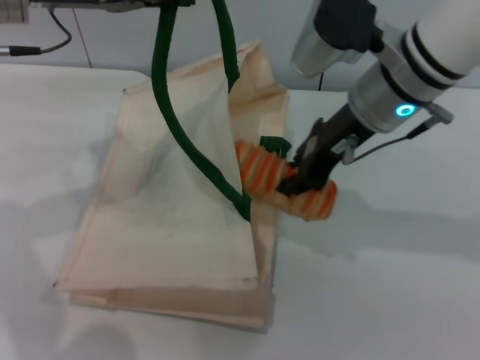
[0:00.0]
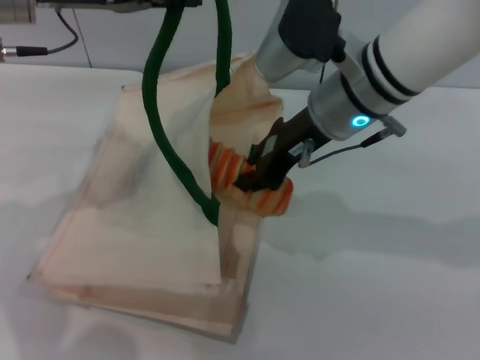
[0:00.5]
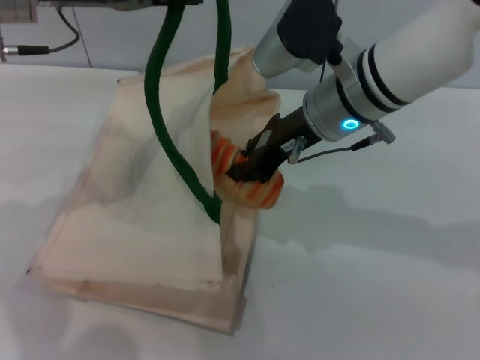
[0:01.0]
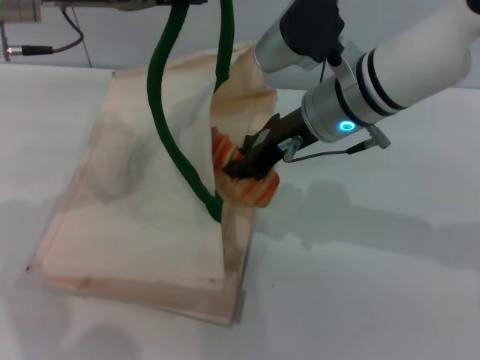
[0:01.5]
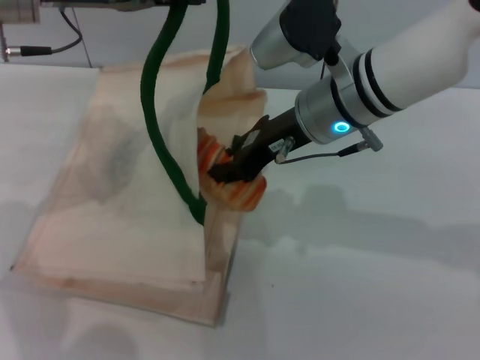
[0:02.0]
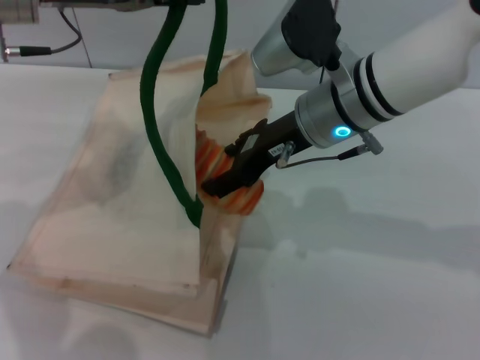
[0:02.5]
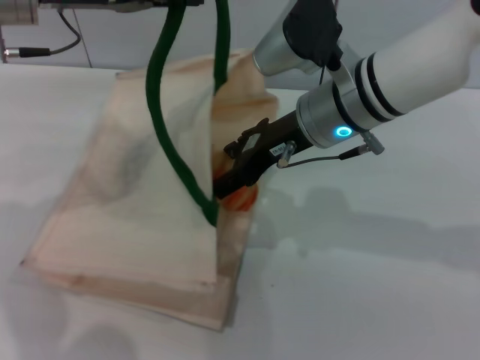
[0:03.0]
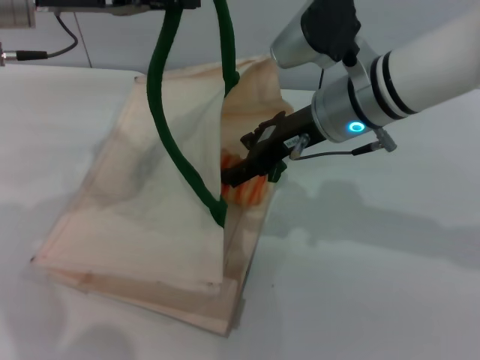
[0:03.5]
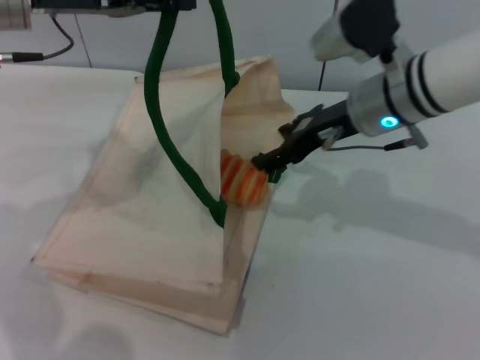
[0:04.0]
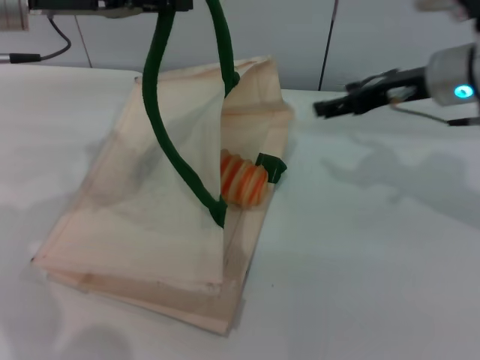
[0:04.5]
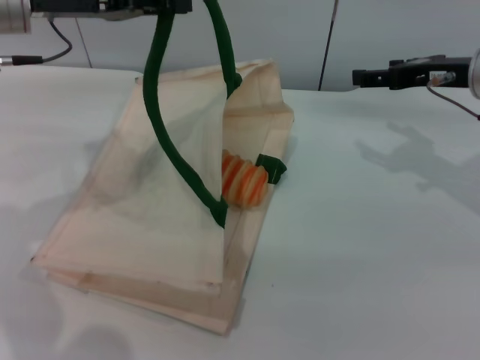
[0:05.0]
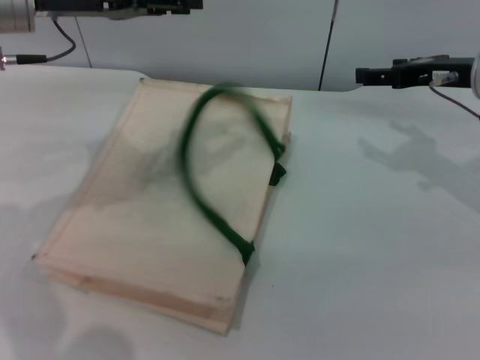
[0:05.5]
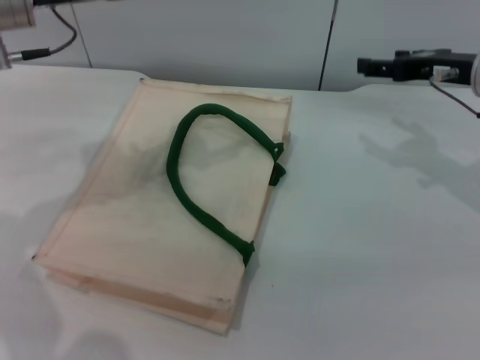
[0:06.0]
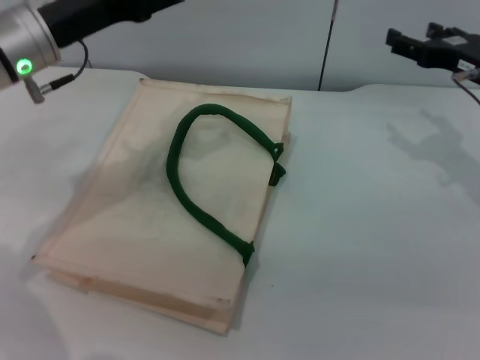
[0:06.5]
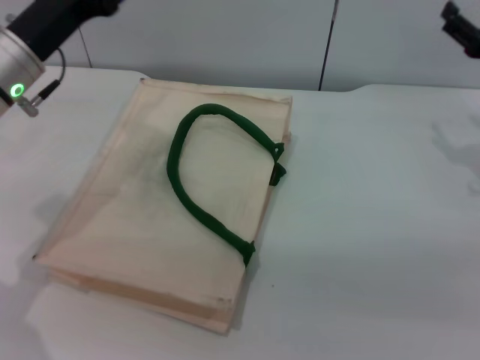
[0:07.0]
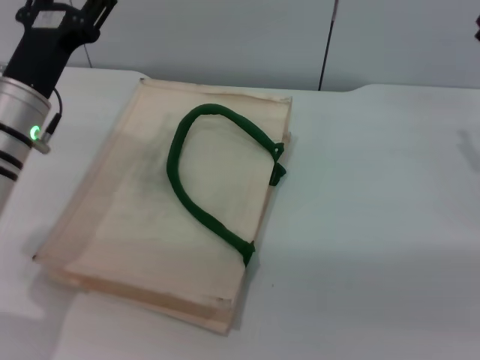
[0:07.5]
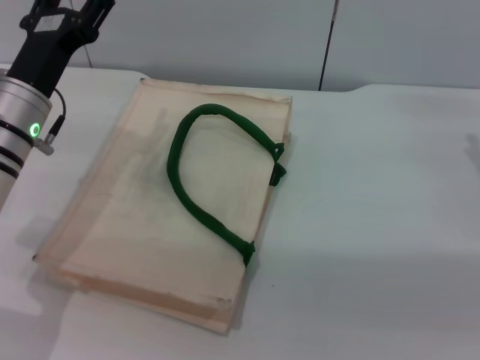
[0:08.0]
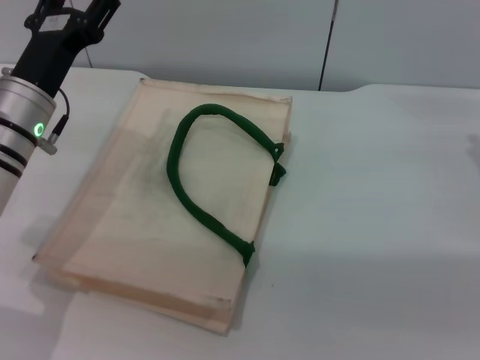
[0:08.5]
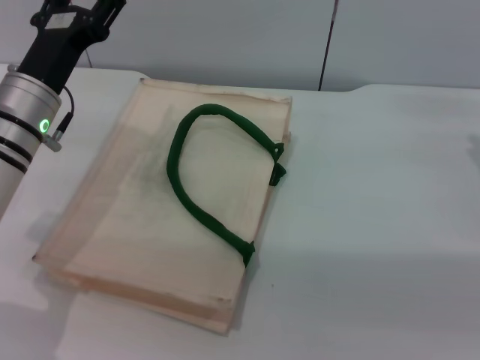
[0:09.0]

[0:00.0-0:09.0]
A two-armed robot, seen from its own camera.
Task of the whole recording: pick up the bread from the table and place it in the white handbag.
Step, 0:00.0 to 0:04.0: Place the bread into the woven bag with the right gripper.
0:02.0 to 0:04.5: The right gripper travels to the right by some 15 cm, and opens its fingers.
0:04.5 to 0:07.0: The left gripper moves downward, approximately 10 cm, and opens its fingers. The right gripper travels to the right by roughly 10 cm.
0:07.0 to 0:09.0: The left gripper changes place by some 5 cm.

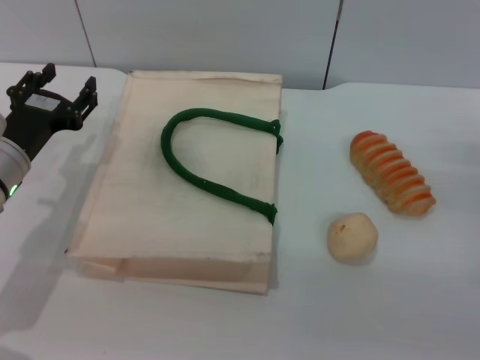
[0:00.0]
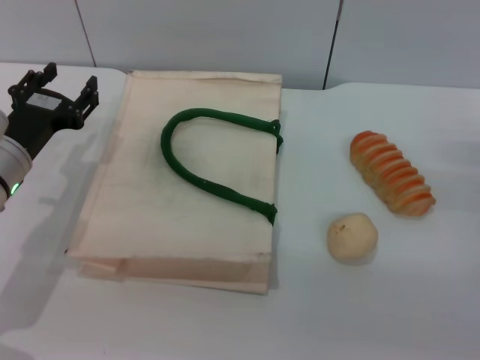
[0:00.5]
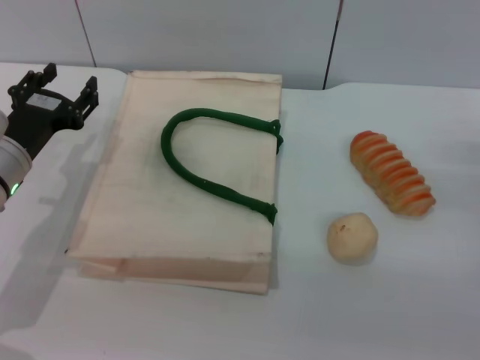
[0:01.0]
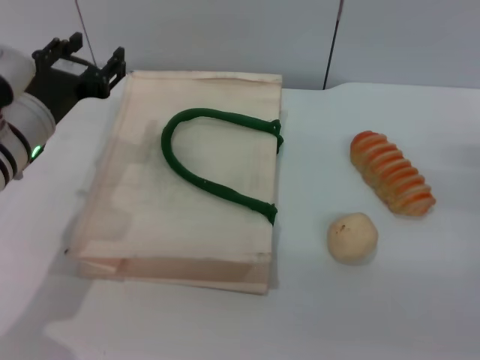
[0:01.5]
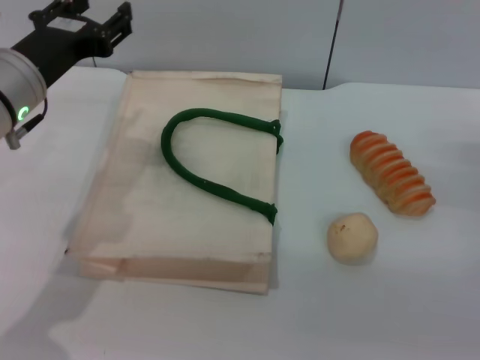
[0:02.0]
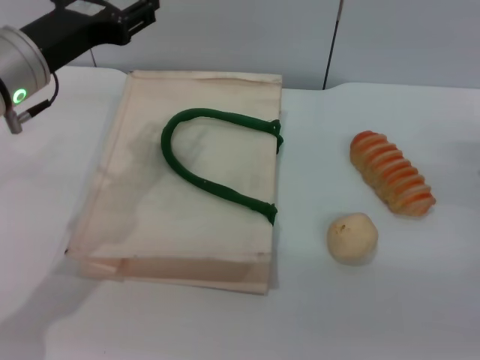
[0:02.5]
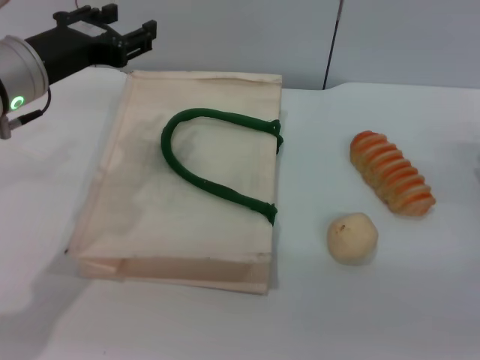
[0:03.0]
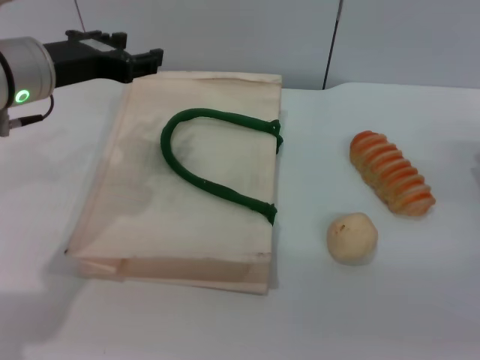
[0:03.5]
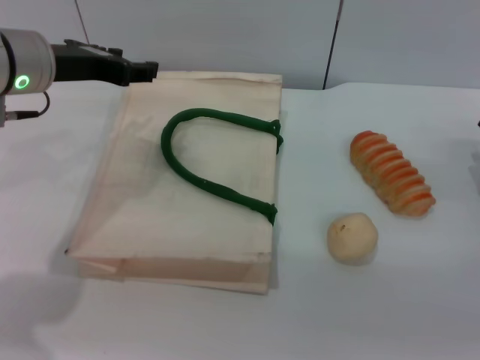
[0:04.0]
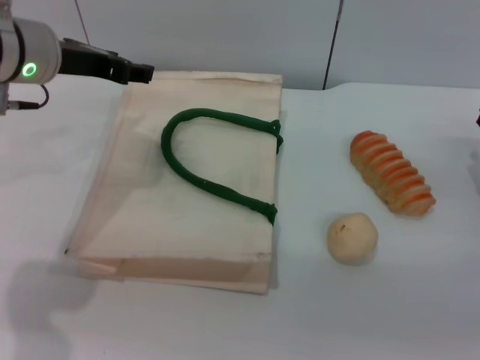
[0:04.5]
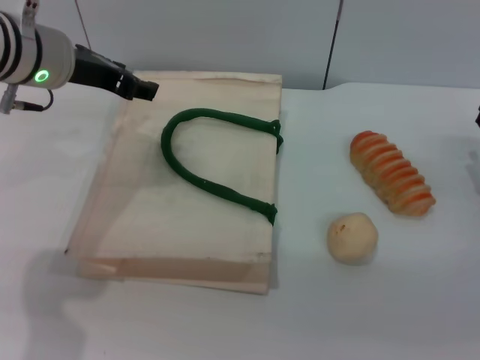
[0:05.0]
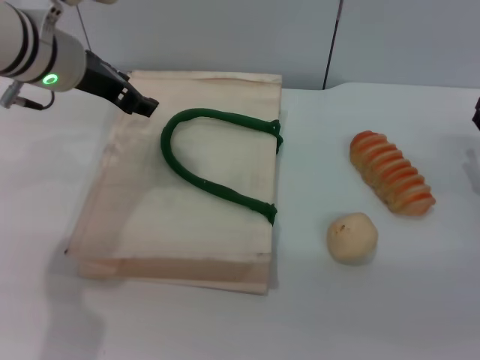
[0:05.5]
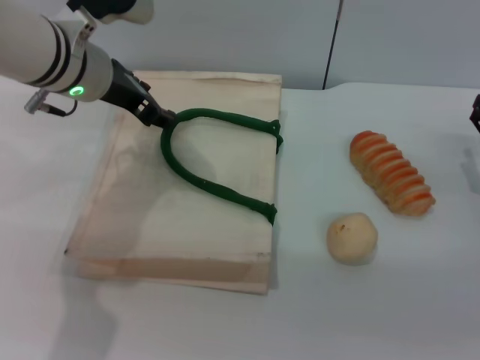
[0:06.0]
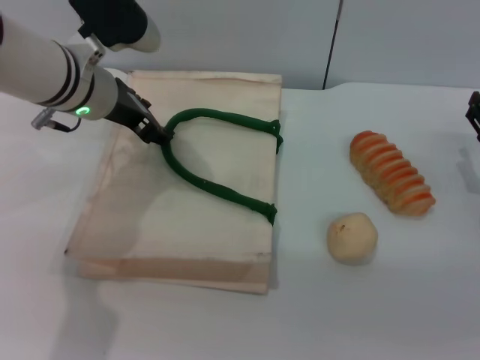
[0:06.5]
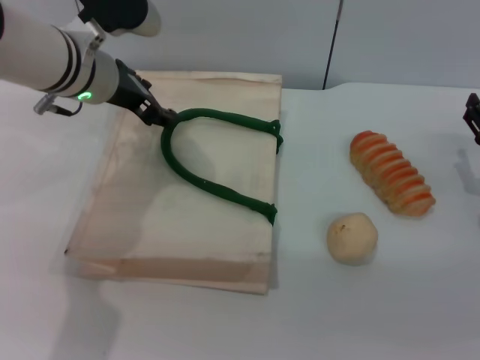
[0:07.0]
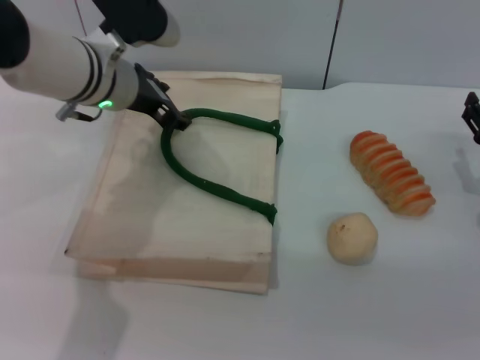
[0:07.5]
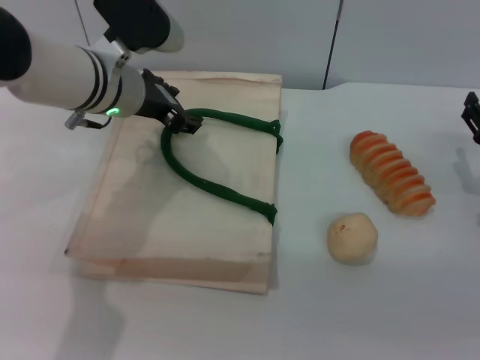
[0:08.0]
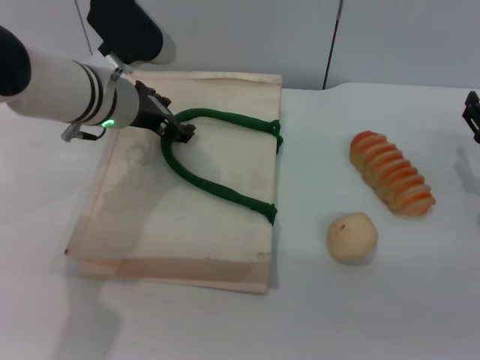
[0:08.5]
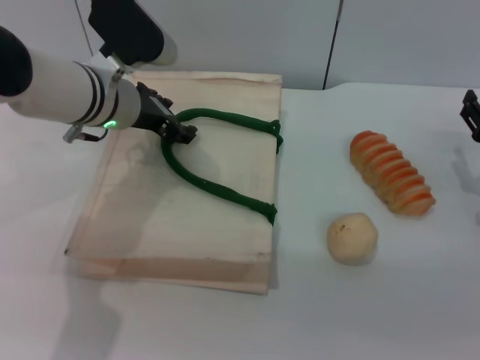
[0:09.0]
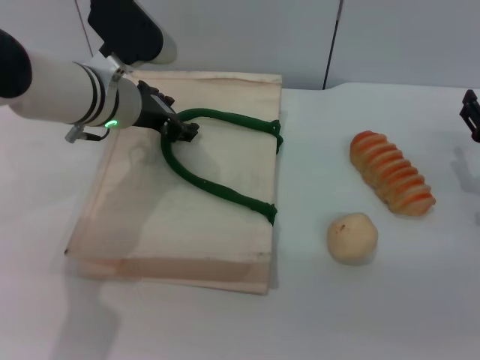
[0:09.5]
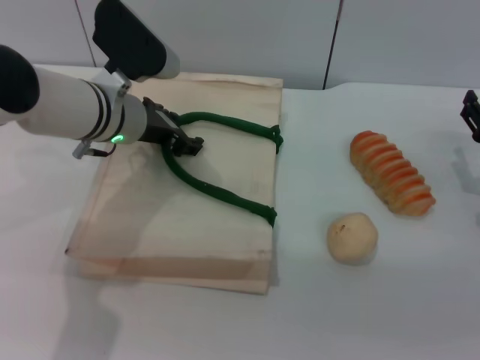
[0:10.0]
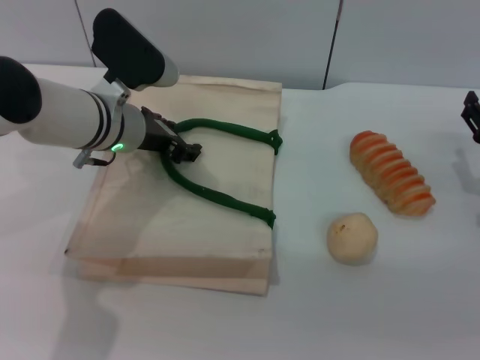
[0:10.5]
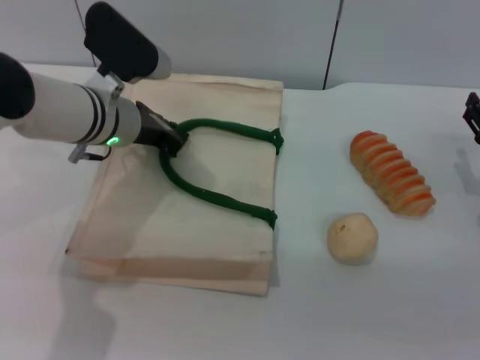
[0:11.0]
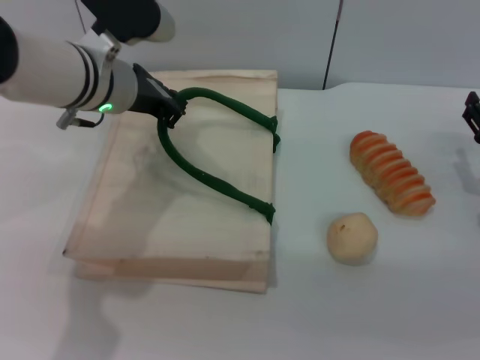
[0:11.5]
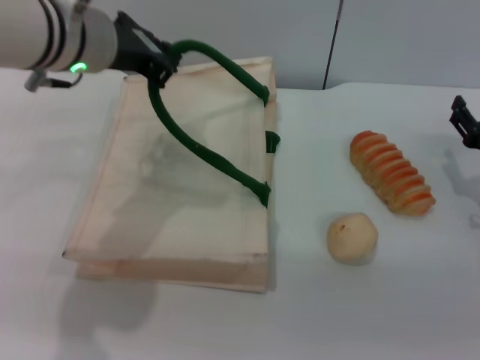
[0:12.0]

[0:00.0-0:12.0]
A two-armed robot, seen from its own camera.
Task of the whole recording: pick up the bread and egg yolk pastry from the table and place it in the white handbag.
0:00.0 to 0:02.0: The left gripper heads upward, covering roughly 10 cm.
0:04.0 to 0:06.0: The left gripper shifts by approximately 5 cm.
0:06.0 to 0:08.0: The grippers make only small movements.
0:08.0 to 0:10.0: The grippers make only small movements.
0:10.0 to 0:12.0: The left gripper heads upward, covering some 10 cm, and closes its fingers.

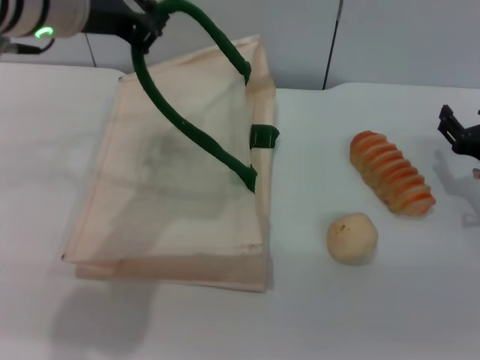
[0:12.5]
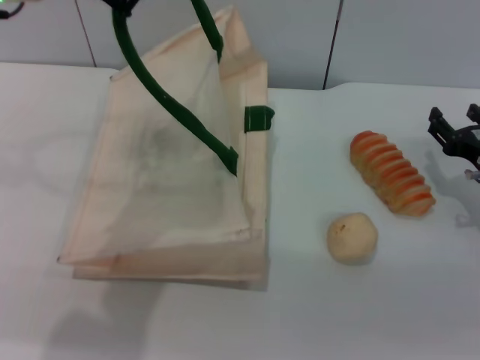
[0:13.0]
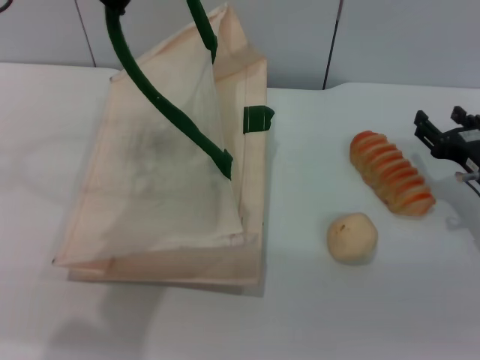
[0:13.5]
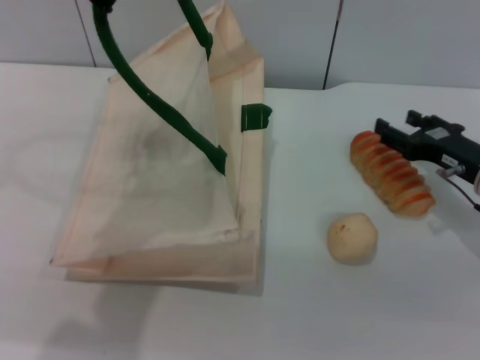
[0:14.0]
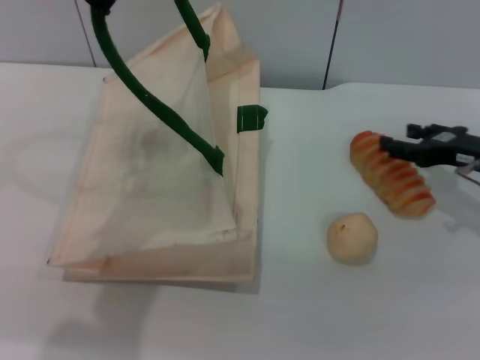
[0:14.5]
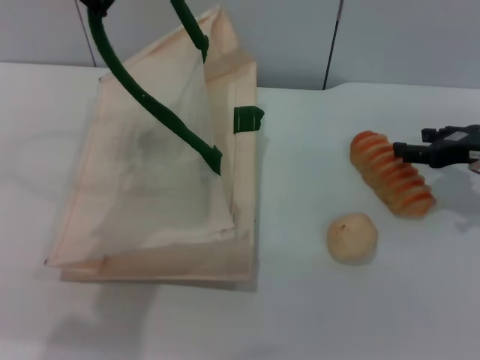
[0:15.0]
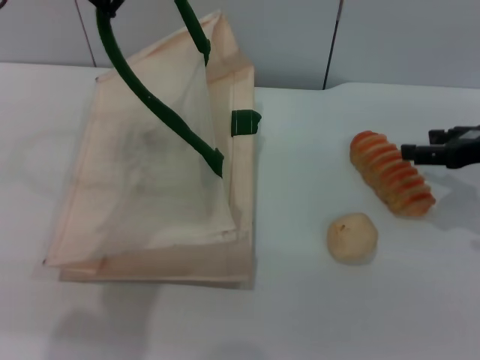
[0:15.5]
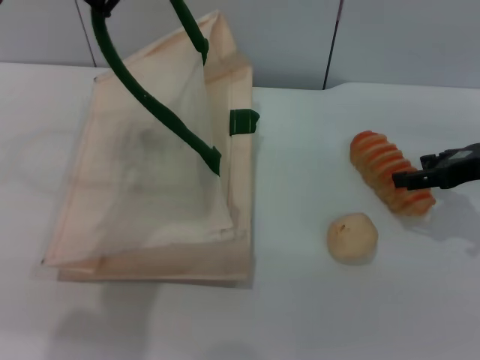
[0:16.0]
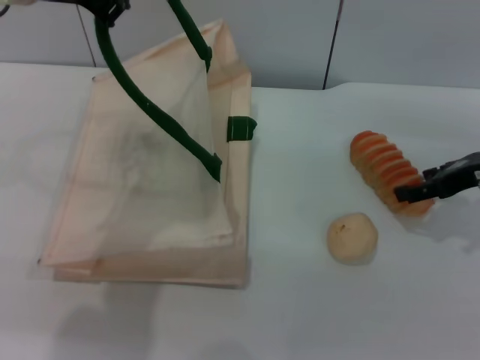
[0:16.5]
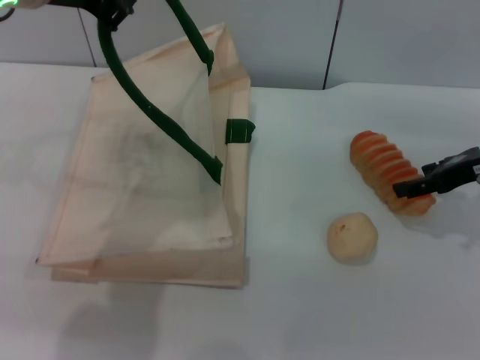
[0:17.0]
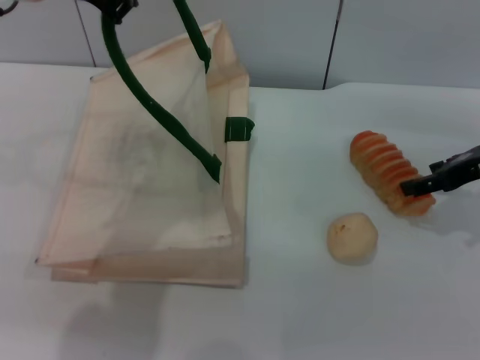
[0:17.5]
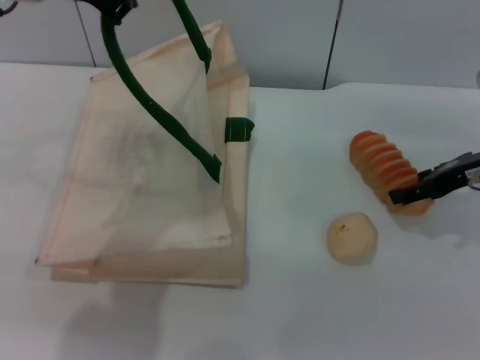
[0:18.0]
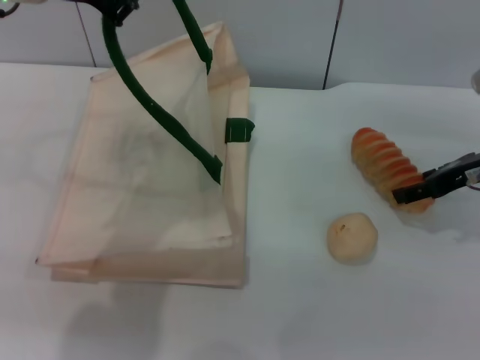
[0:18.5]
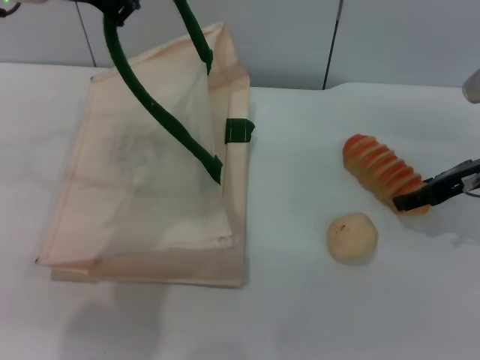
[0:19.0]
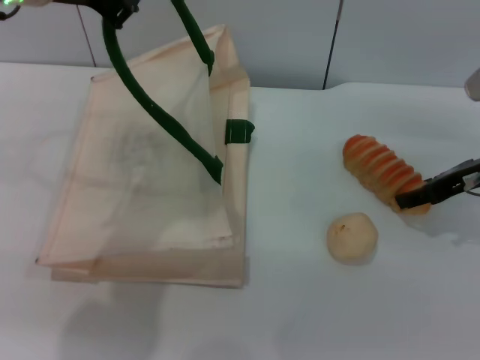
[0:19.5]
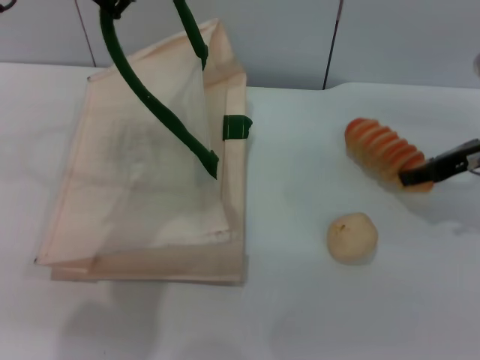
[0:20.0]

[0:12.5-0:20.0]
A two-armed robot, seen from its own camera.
Task of the whole recording: pick up the bread and egg yolk pastry from the table and place it in the white handbag.
0:12.5 to 0:14.5: The left gripper moves roughly 5 cm. Meanwhile the right gripper shifts by roughly 5 cm.
0:16.5 to 0:18.0: Both grippers stay put.
0:18.0 to 0:20.0: The right gripper closes its fingers.
